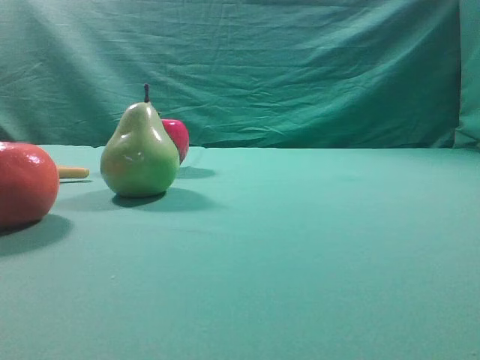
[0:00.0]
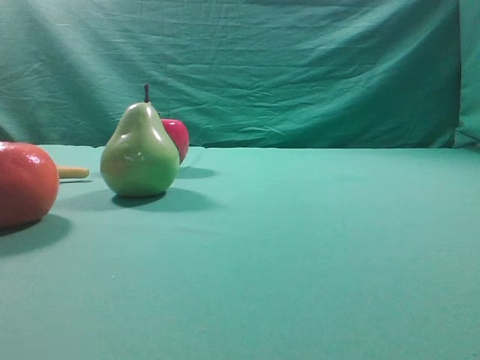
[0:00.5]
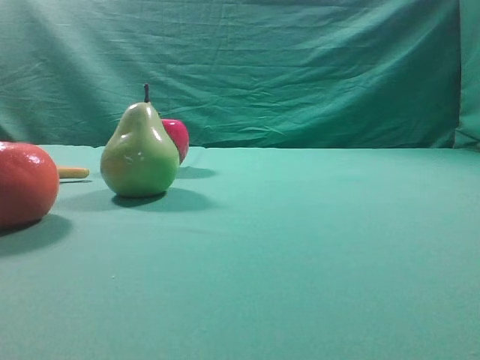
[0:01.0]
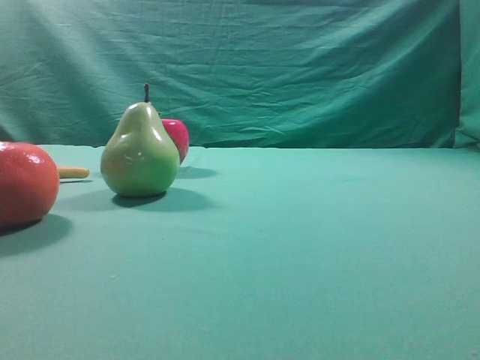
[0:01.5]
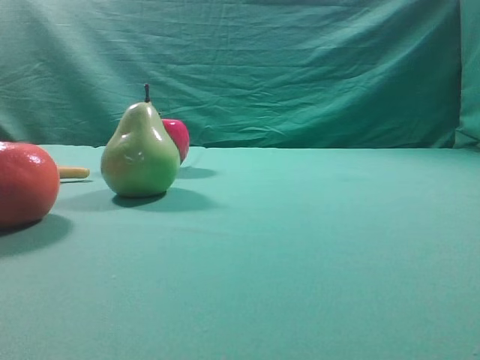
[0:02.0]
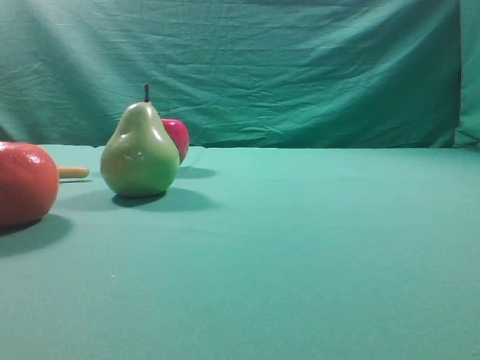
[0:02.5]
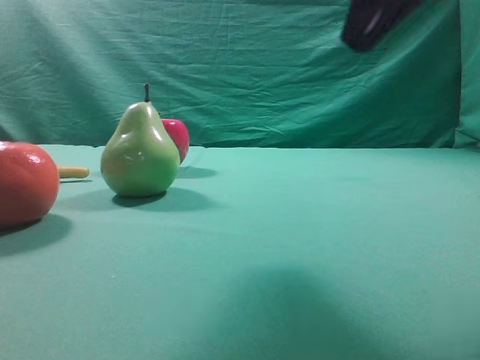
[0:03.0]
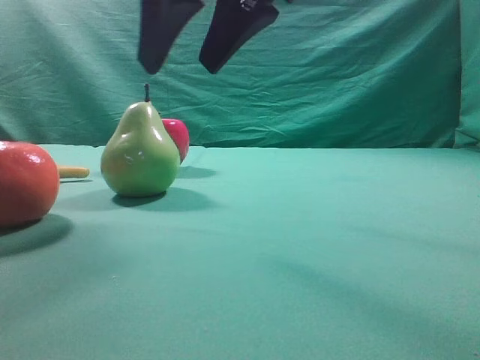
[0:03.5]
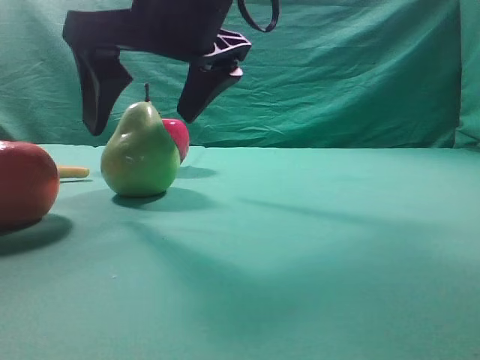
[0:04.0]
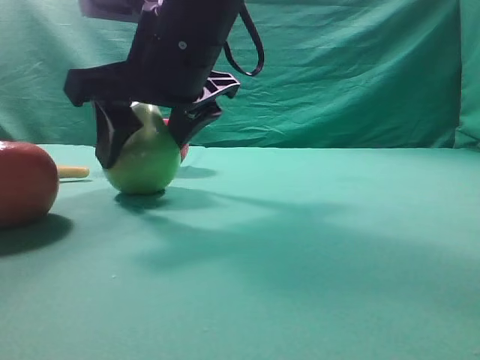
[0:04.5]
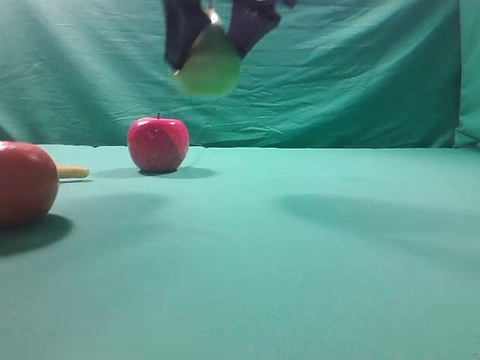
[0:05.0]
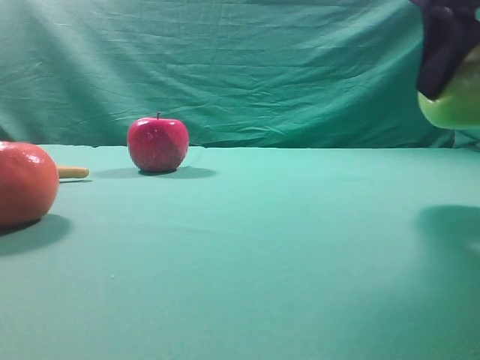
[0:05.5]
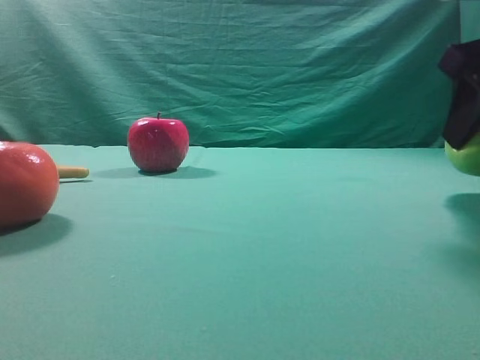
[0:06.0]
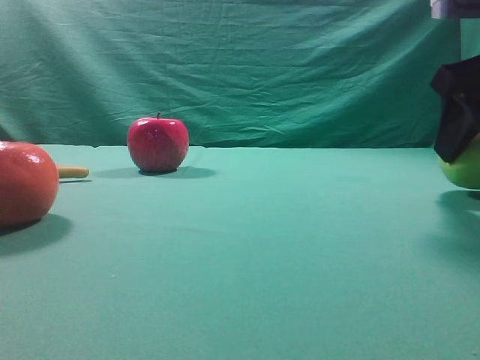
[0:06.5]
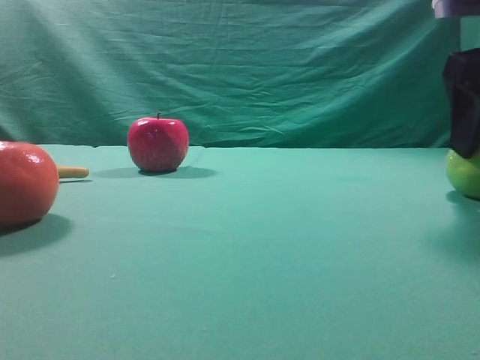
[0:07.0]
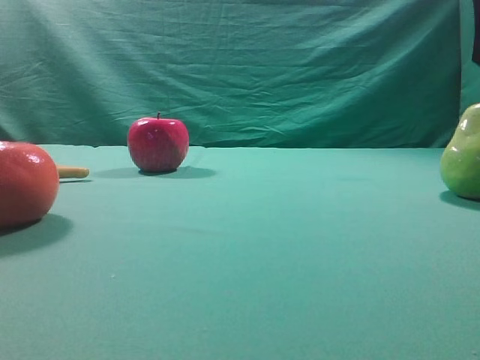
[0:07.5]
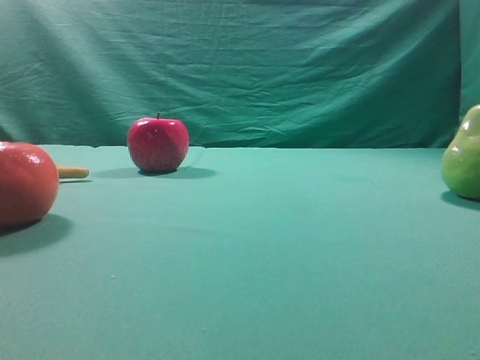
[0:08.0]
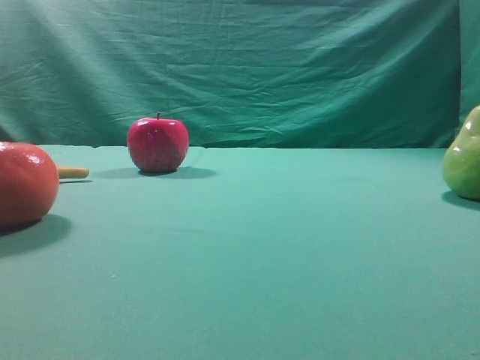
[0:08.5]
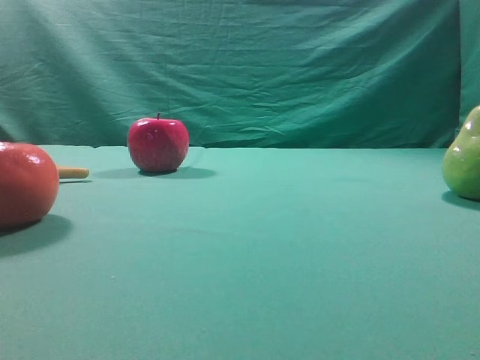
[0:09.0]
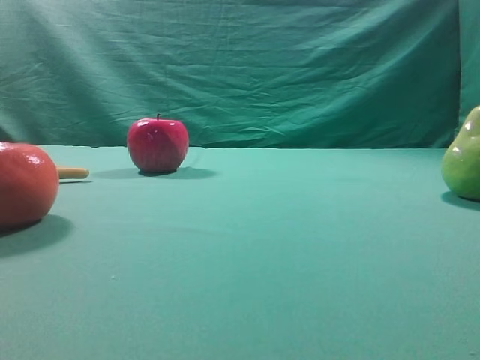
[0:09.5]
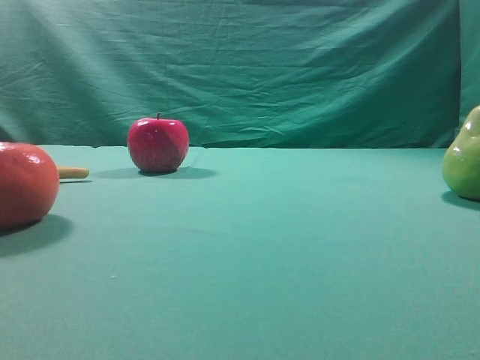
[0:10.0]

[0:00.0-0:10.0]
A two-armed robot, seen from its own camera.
Task of the whole recording: Grasp the pear and place it on one side of the table.
Step, 0:00.0 to 0:04.5: Grasp the high-fiber fruit.
Step, 0:05.0 to 0:06.0: Place it on the right side of the table.

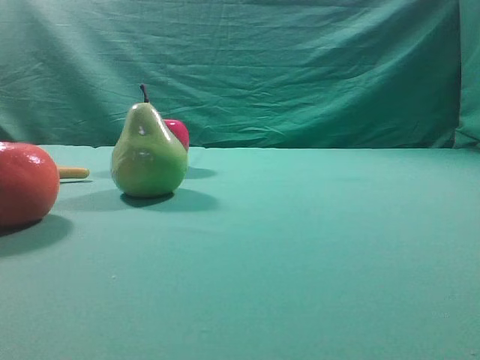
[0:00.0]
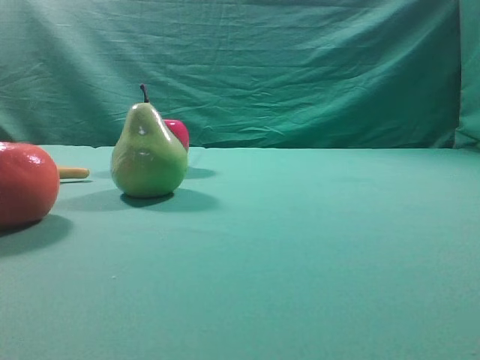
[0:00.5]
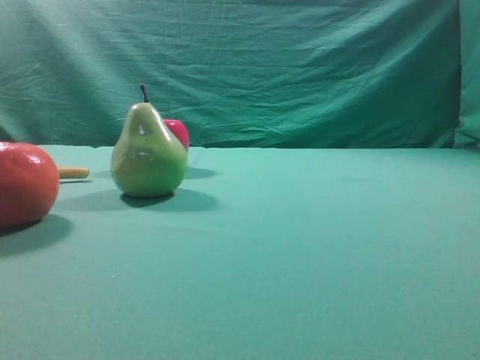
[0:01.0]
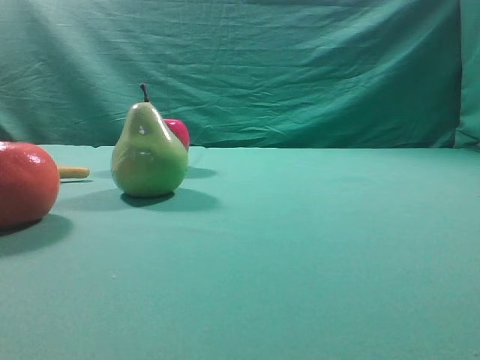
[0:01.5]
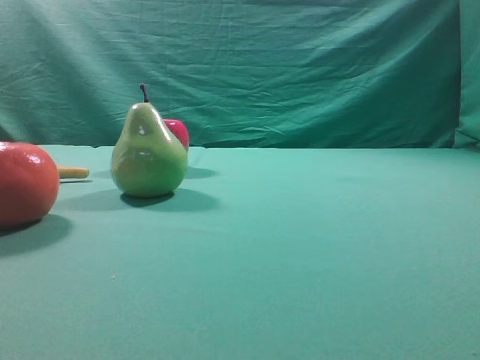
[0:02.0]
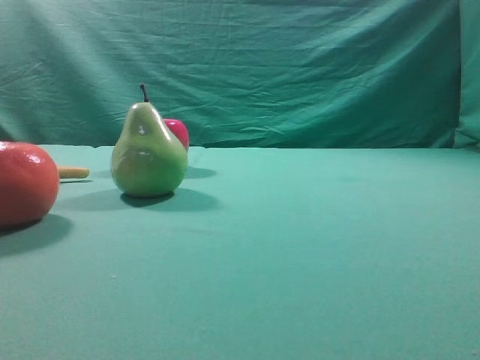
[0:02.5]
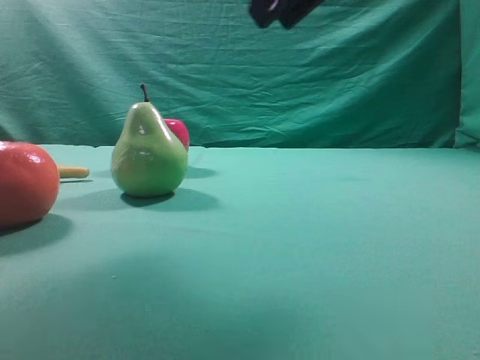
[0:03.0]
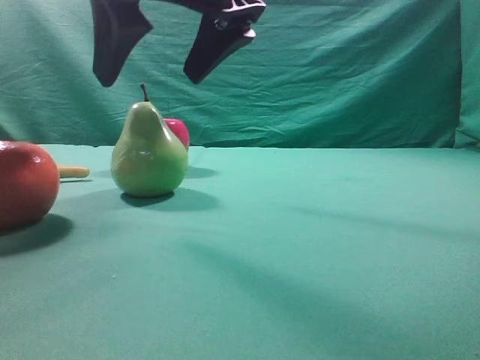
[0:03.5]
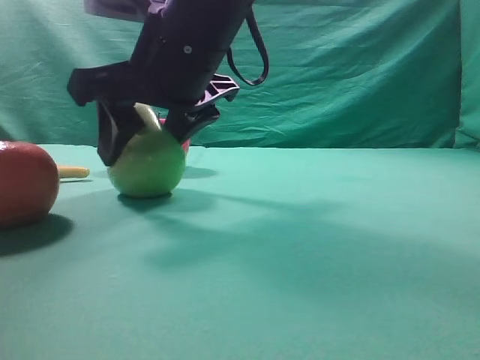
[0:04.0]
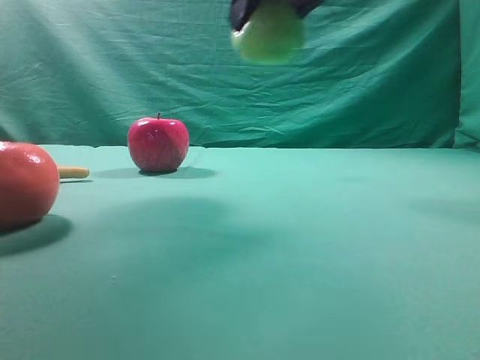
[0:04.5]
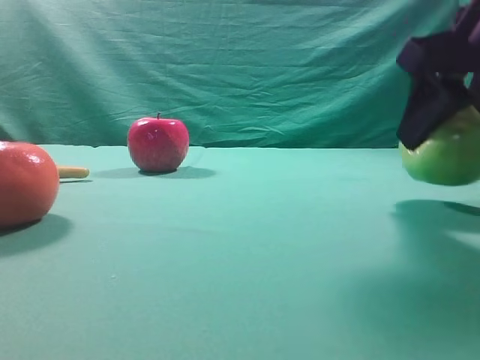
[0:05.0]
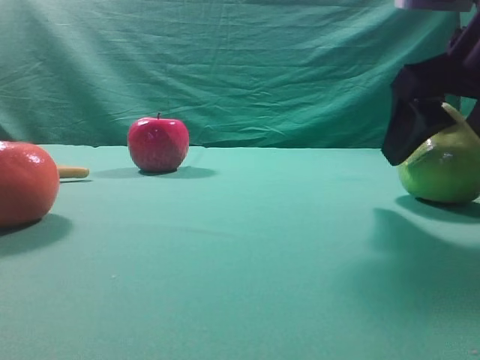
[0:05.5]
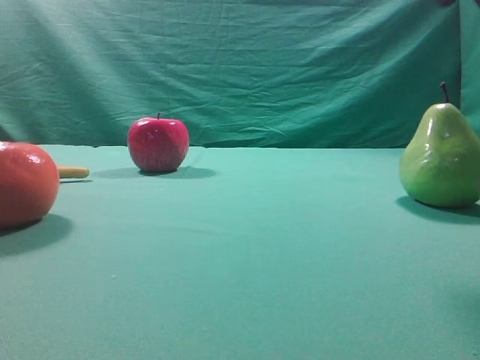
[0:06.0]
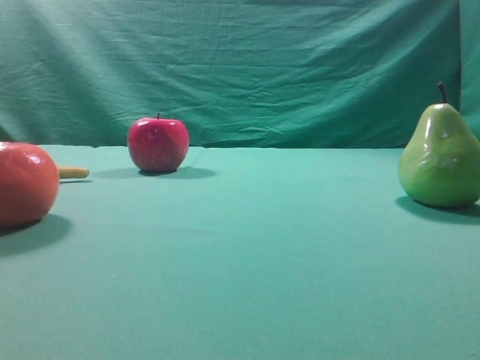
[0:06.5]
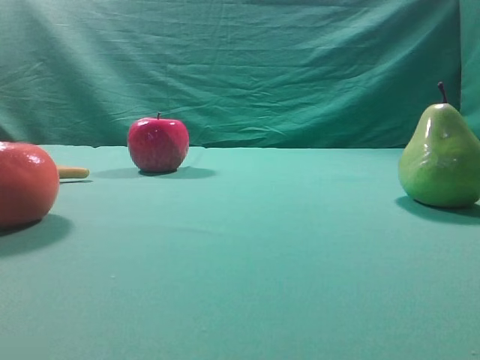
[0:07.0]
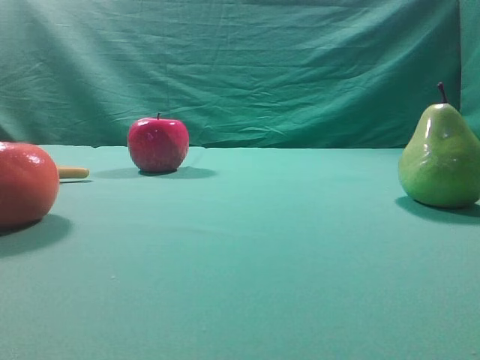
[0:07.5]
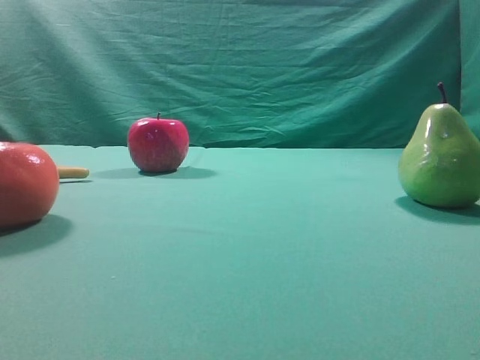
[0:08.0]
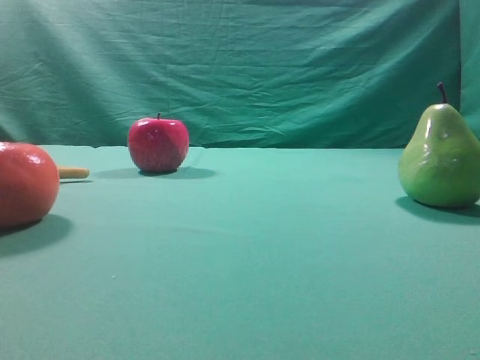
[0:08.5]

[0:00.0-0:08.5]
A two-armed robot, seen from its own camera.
Task of the whole recording: Grasp the pear and place it on one side of the table.
Step, 0:00.0 to 0:04.0: Grasp the high-fiber fruit.
Step, 0:04.5 to 0:05.5: Place it on the right side of the table.
